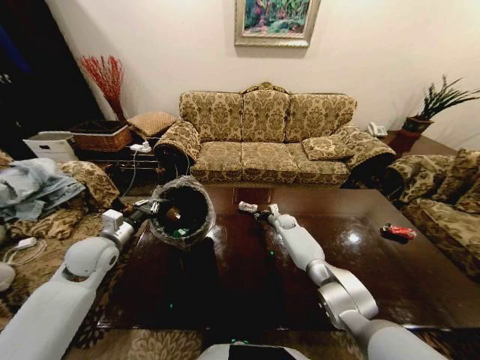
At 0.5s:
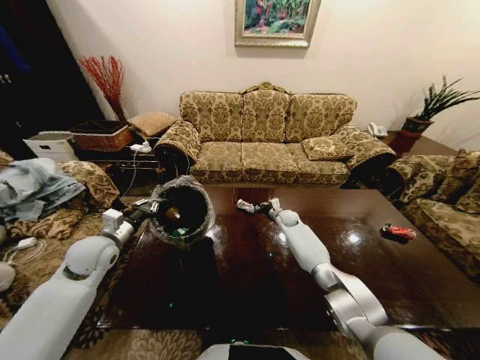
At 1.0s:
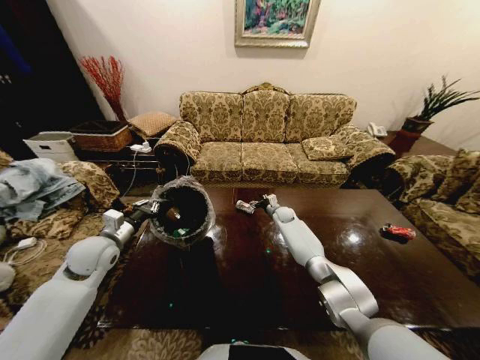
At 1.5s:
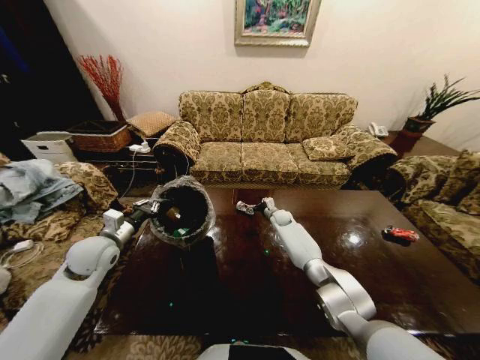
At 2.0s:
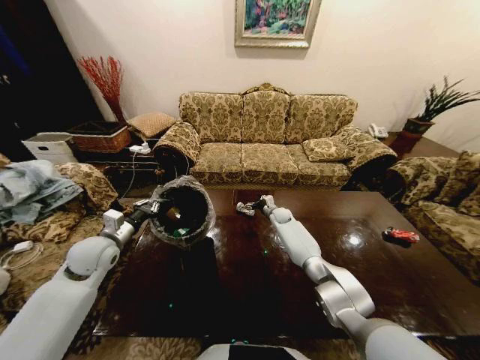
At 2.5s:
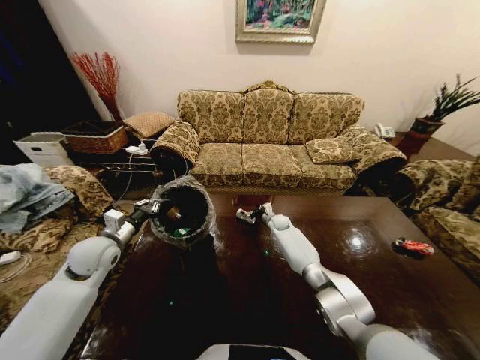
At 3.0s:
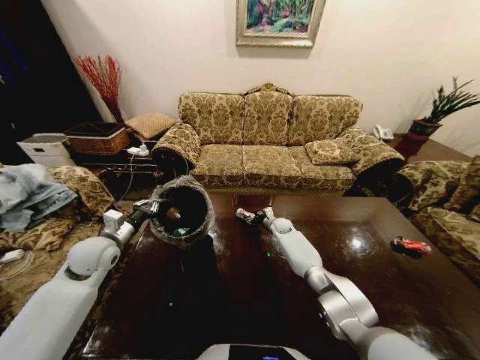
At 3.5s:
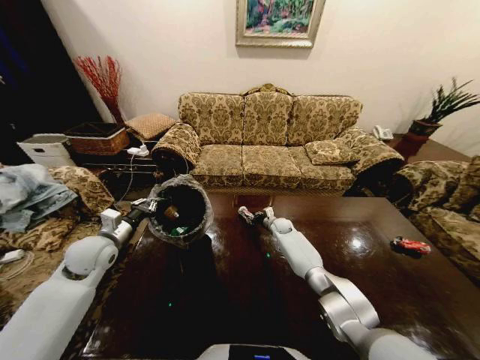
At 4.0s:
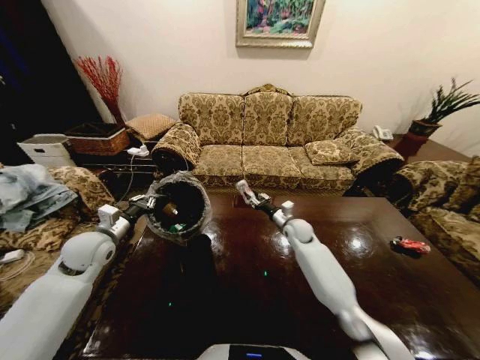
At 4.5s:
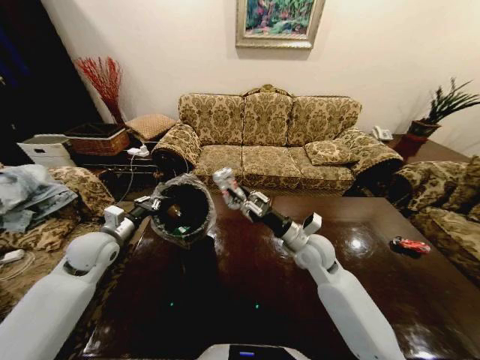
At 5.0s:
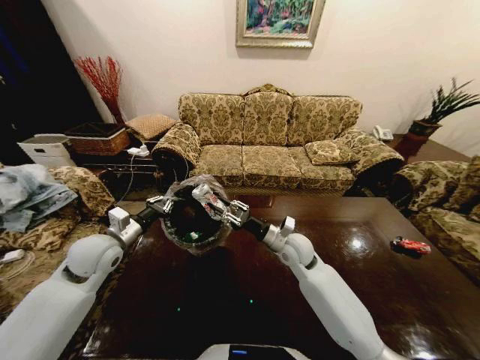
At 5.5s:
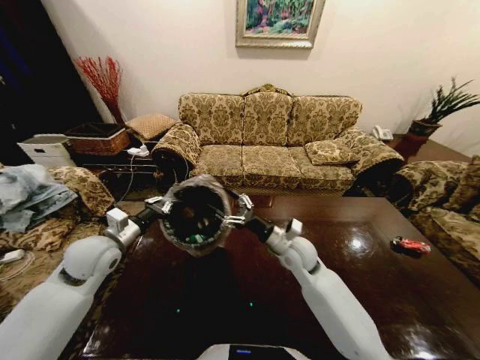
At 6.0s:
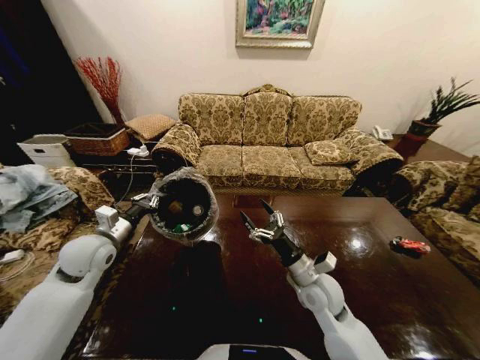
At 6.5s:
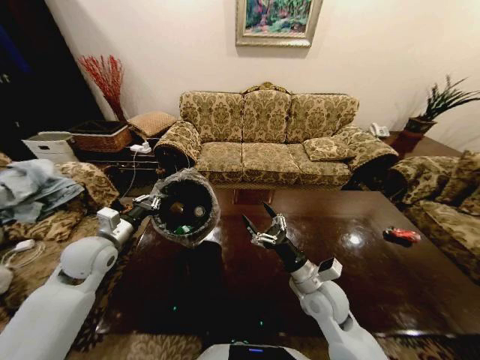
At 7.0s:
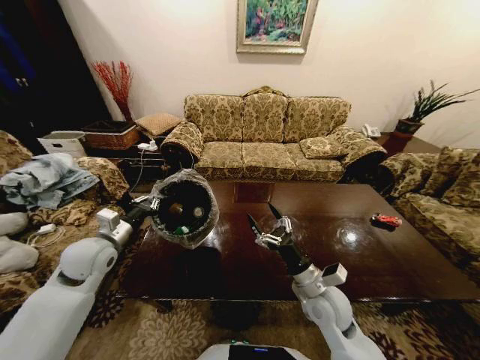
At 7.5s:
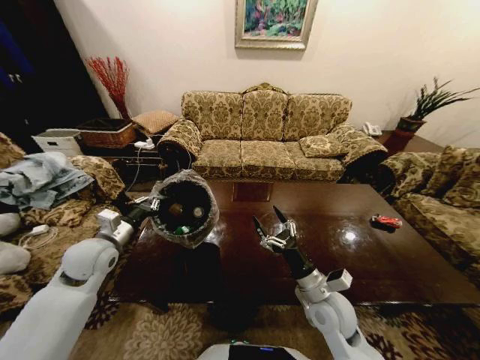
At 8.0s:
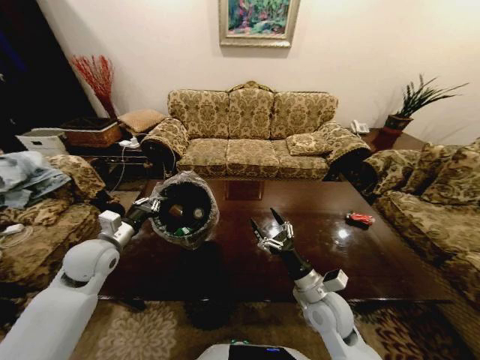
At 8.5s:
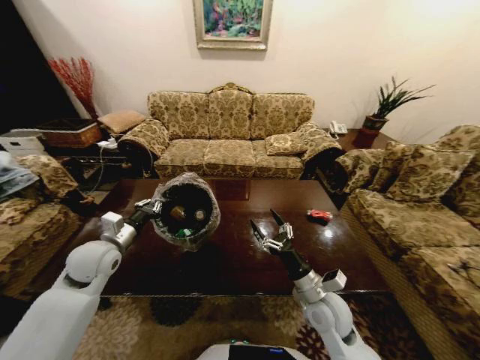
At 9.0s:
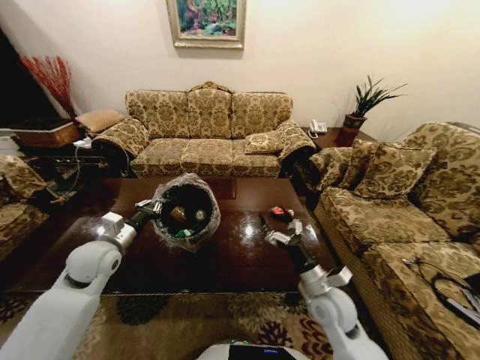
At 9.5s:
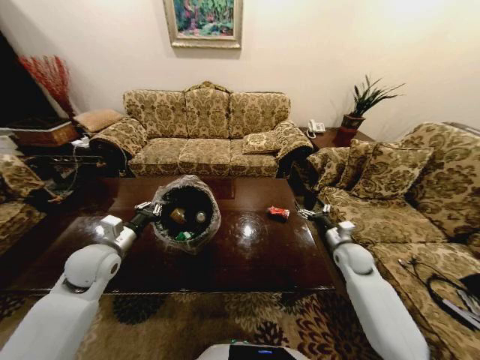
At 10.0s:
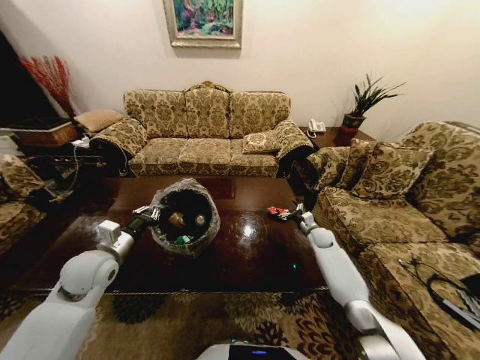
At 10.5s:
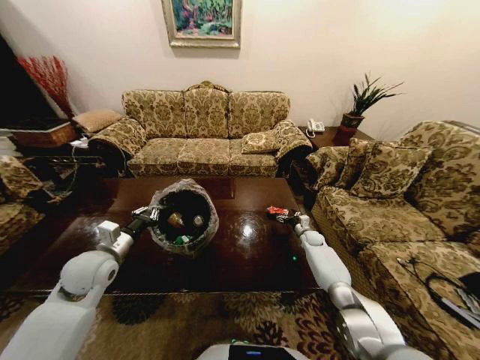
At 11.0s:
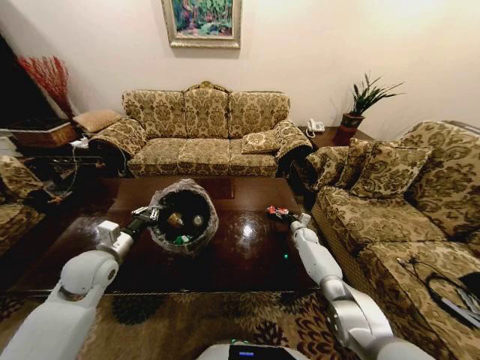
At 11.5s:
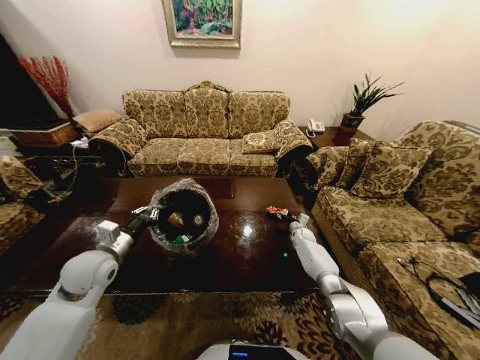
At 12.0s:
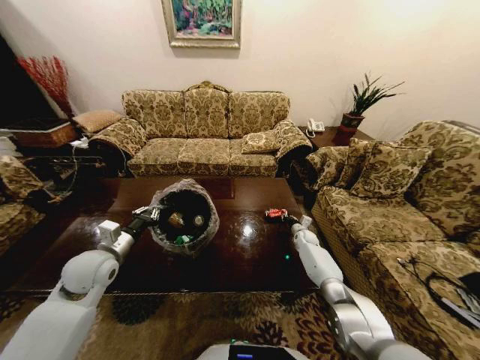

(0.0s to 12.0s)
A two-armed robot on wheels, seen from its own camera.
Task of the whole recording: Move to the front of the table and place the trash on the table into the trash bin.
0.0s - 2.0s: The right gripper opens its fingers.
2.0s - 4.0s: The right gripper travels backward and upward by approximately 15 cm, and closes.
4.0s - 6.0s: The right gripper goes some 20 cm backward, and opens.
8.0s - 10.0s: The right gripper shifts about 30 cm forward and to the right.
10.0s - 12.0s: The right gripper shifts roughly 5 cm downward, and closes.

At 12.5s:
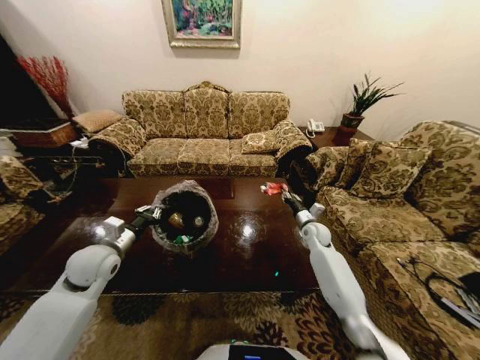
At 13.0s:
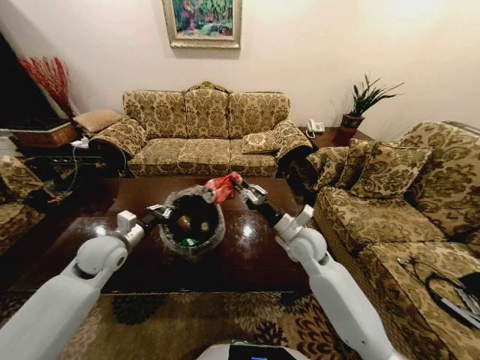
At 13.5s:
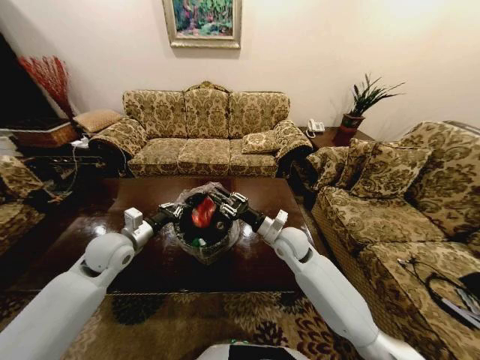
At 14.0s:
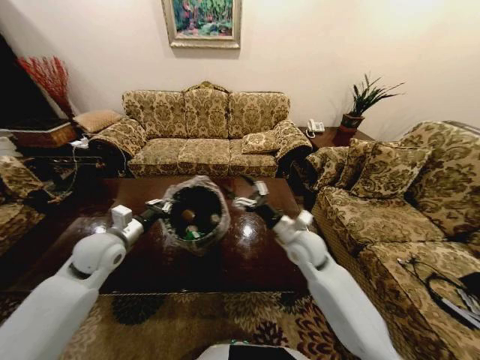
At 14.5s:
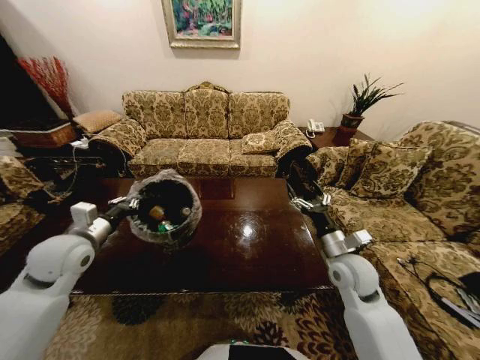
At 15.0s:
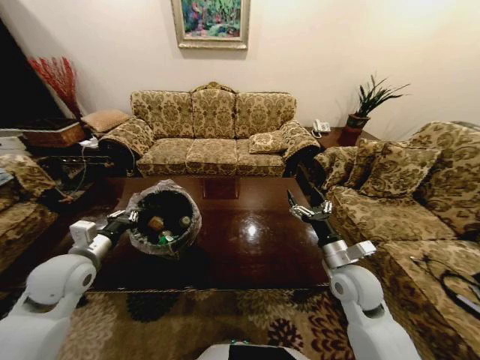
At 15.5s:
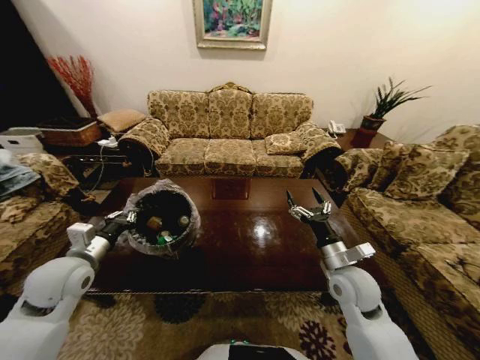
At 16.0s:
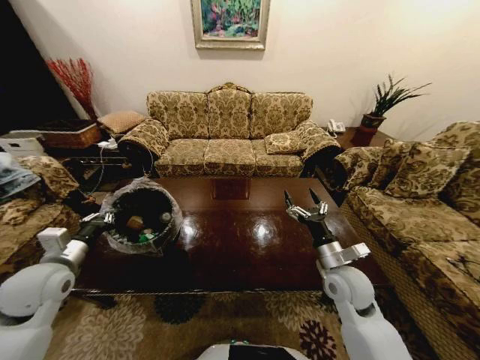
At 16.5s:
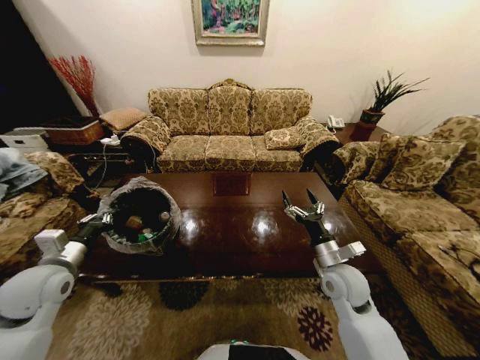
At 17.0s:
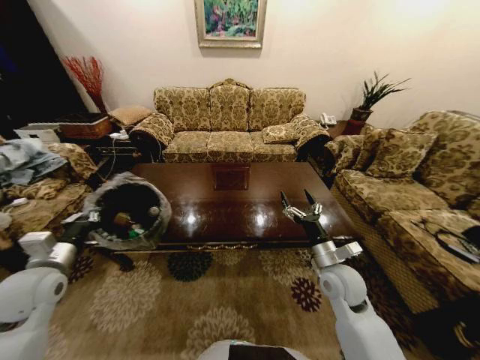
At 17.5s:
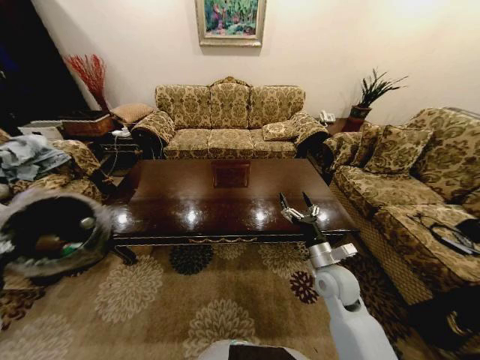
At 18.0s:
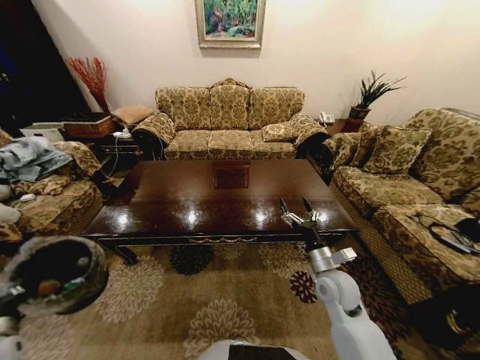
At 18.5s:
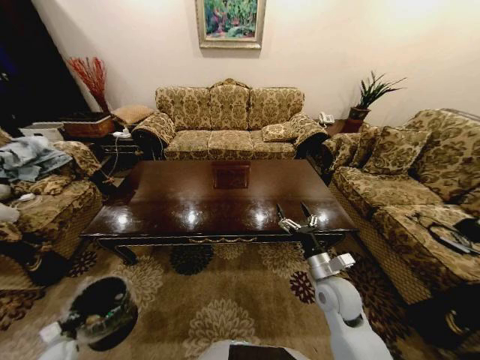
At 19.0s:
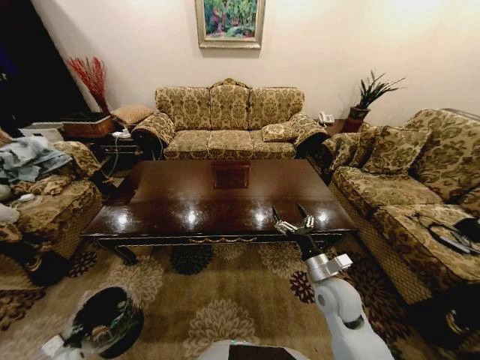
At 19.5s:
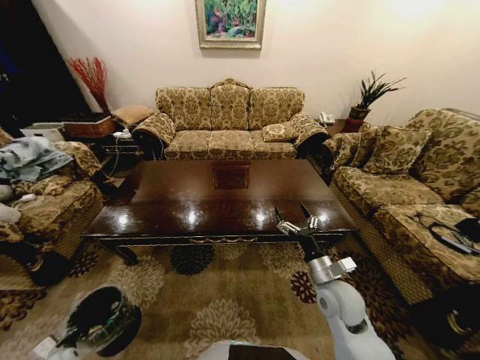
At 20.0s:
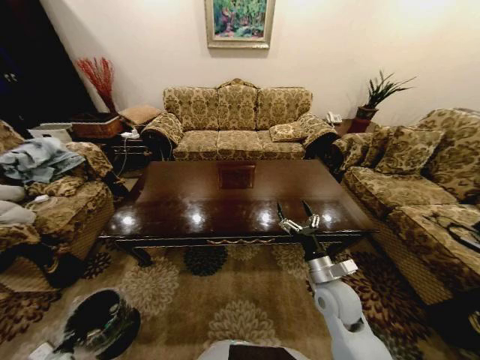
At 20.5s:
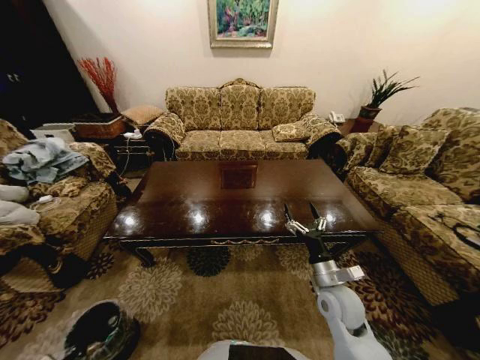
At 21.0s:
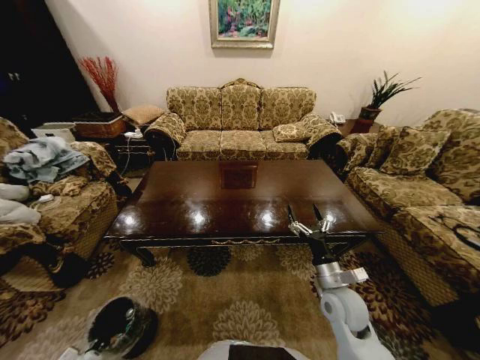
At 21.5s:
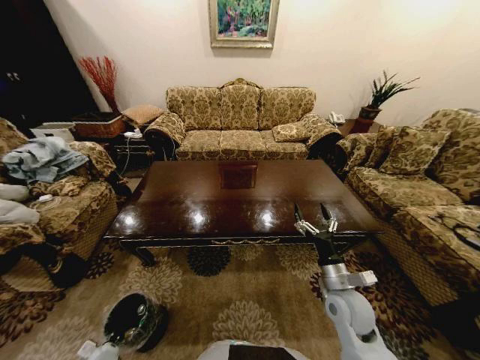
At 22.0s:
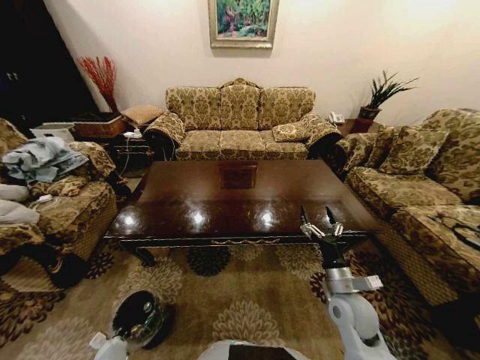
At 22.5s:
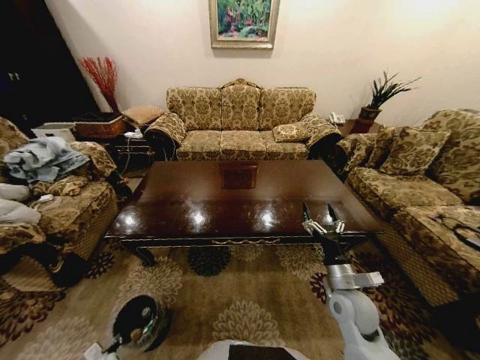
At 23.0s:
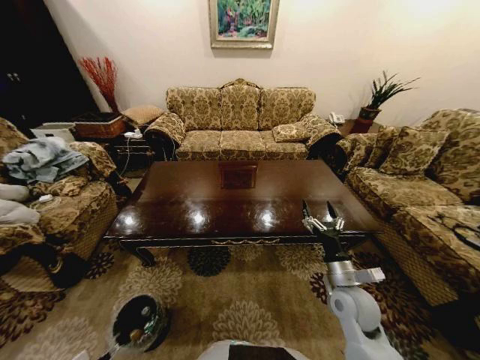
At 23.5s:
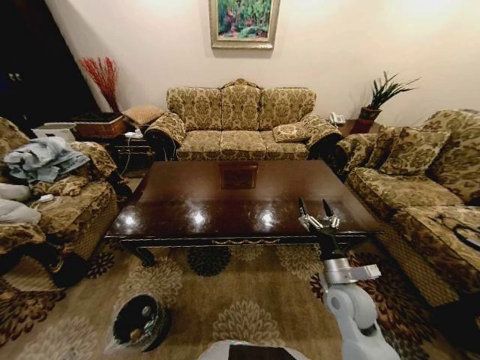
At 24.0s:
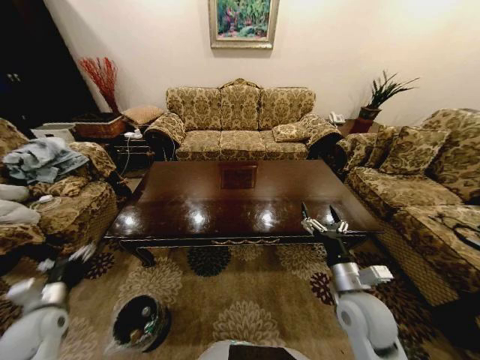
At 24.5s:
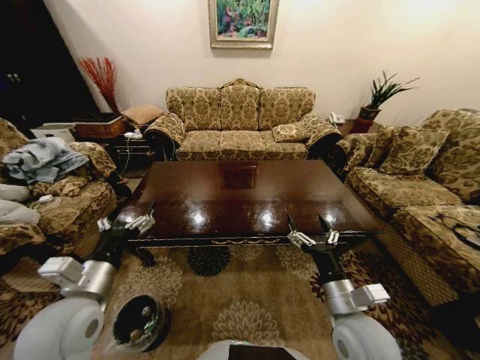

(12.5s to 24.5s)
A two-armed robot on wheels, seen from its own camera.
Task of the whole recording: Move to the front of the table and place the trash on the table into the trash bin.
12.5s - 14.5s: The left gripper goes approximately 5 cm upward, while the right gripper is displaced backward and upward by approximately 20 cm, and opens its fingers.
14.5s - 16.5s: The left gripper goes approximately 5 cm backward.
16.5s - 18.5s: The left gripper heads downward, covering about 35 cm.
18.5s - 20.5s: The left gripper moves downward and backward, approximately 10 cm.
20.5s - 22.5s: The left gripper goes approximately 10 cm to the right and downward, and opens up.
22.5s - 24.5s: The right gripper moves upward, backward and to the left, about 10 cm. The left gripper moves upward, about 50 cm, and opens its fingers.
